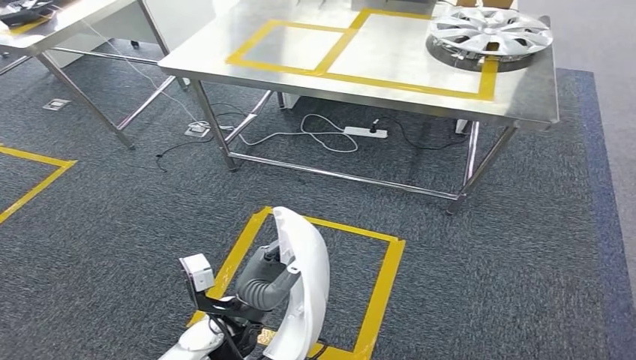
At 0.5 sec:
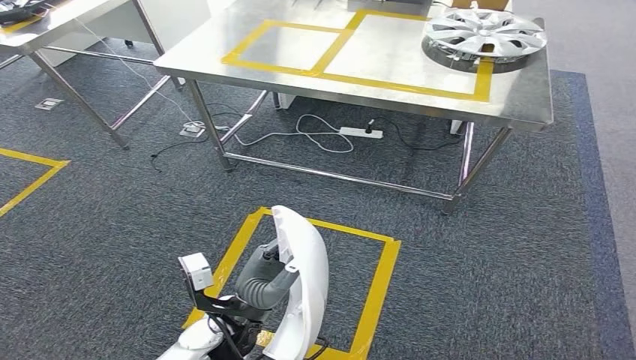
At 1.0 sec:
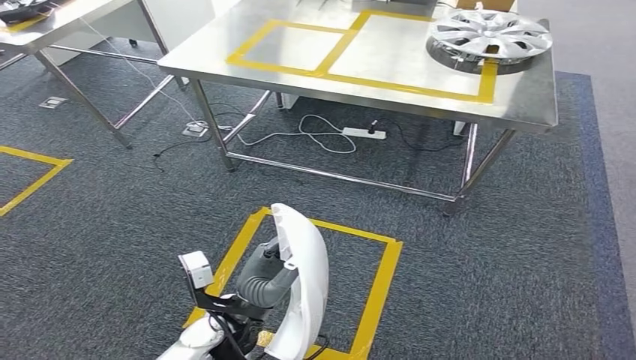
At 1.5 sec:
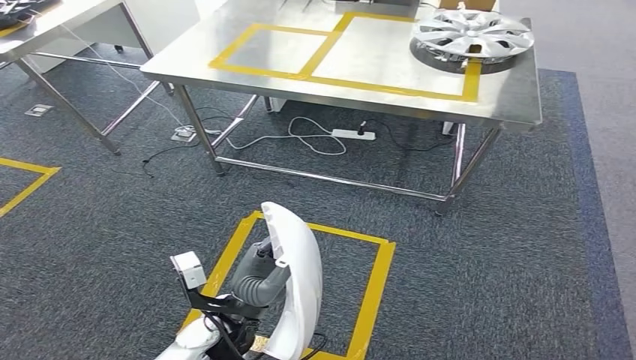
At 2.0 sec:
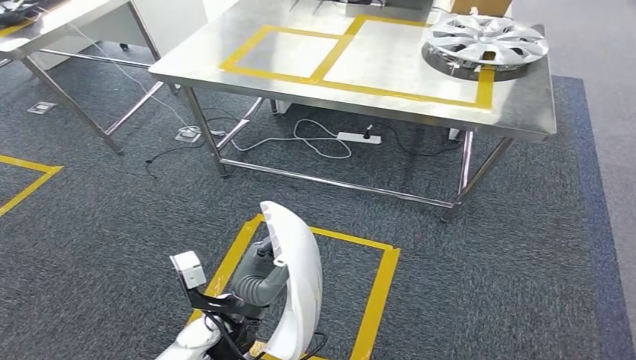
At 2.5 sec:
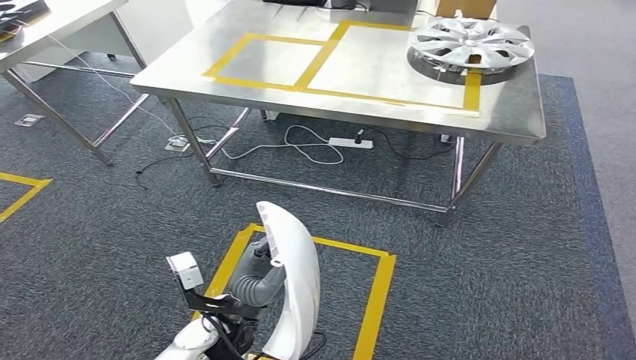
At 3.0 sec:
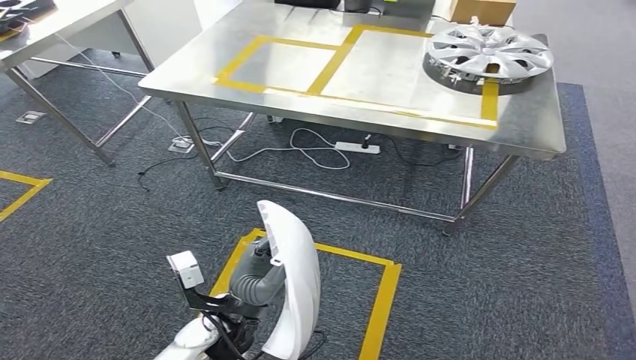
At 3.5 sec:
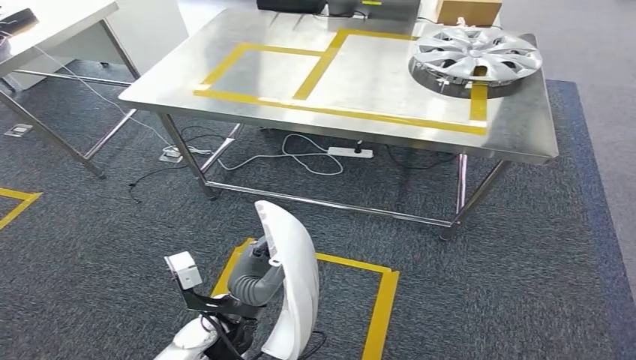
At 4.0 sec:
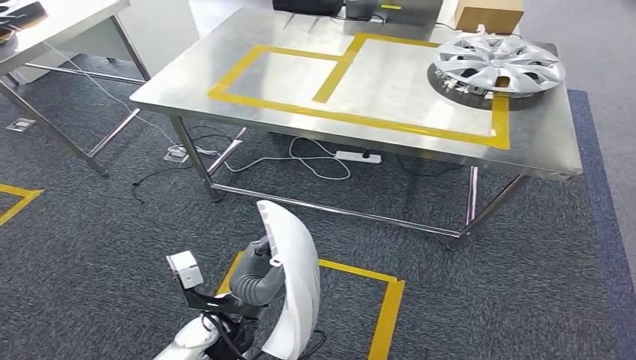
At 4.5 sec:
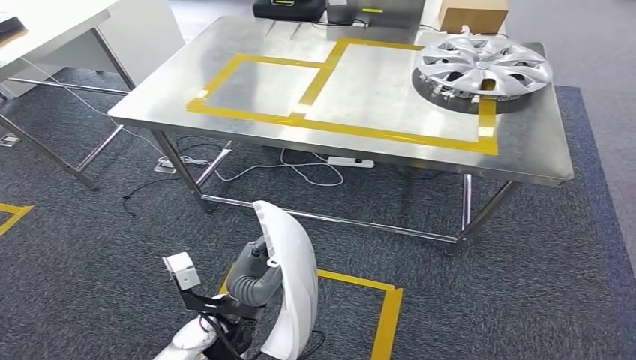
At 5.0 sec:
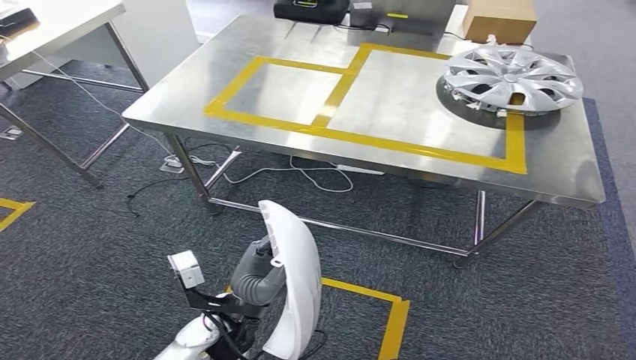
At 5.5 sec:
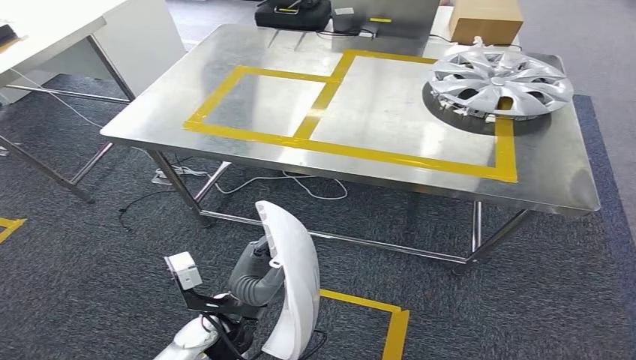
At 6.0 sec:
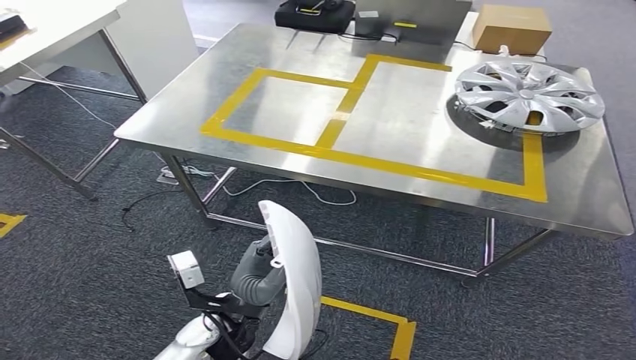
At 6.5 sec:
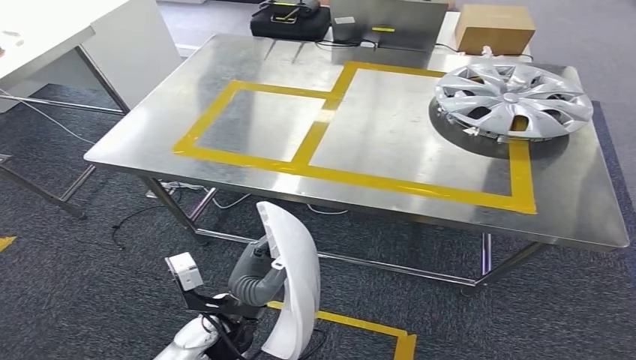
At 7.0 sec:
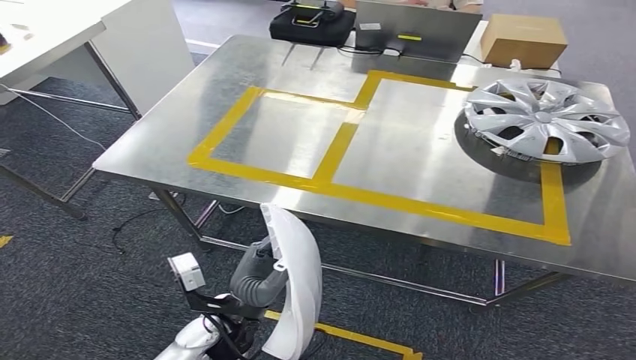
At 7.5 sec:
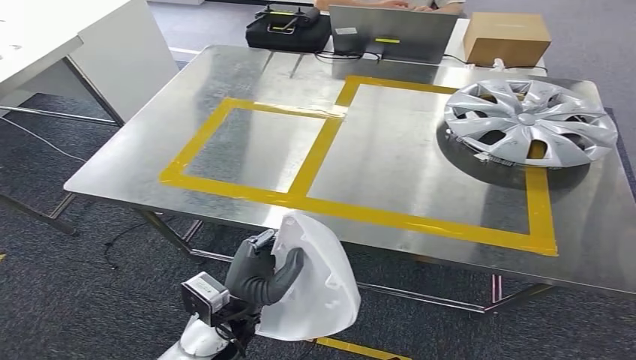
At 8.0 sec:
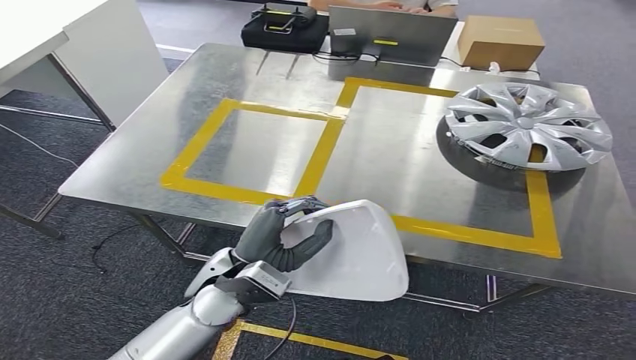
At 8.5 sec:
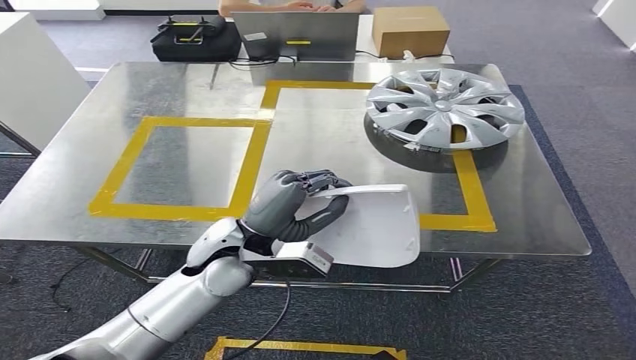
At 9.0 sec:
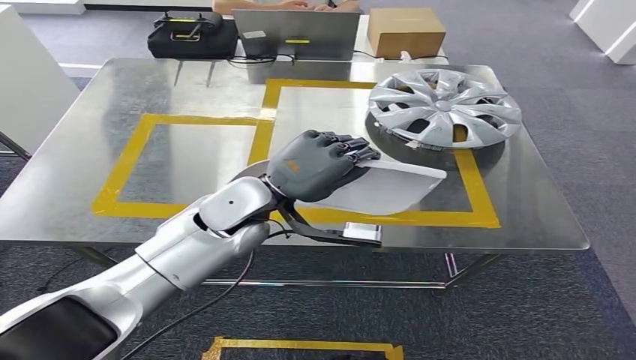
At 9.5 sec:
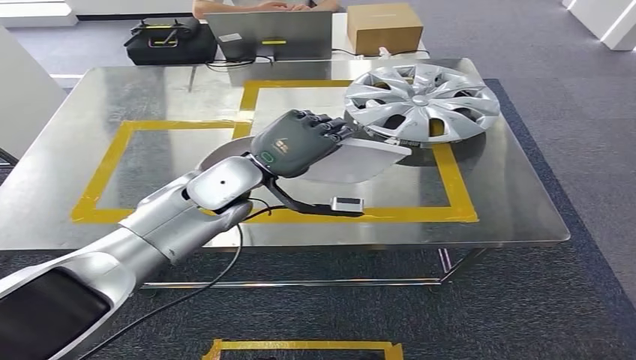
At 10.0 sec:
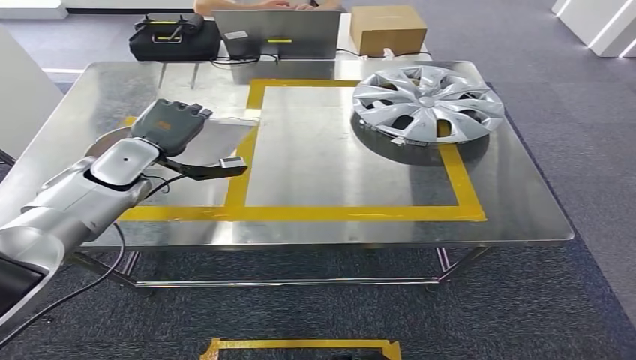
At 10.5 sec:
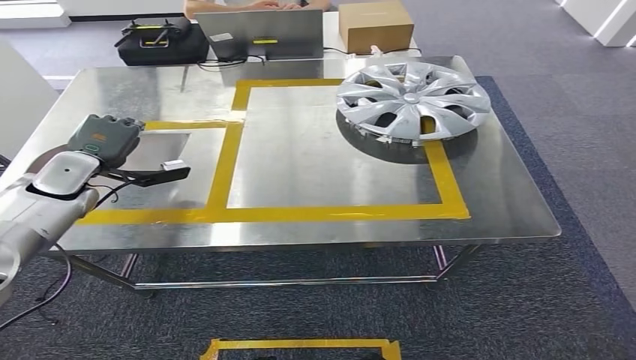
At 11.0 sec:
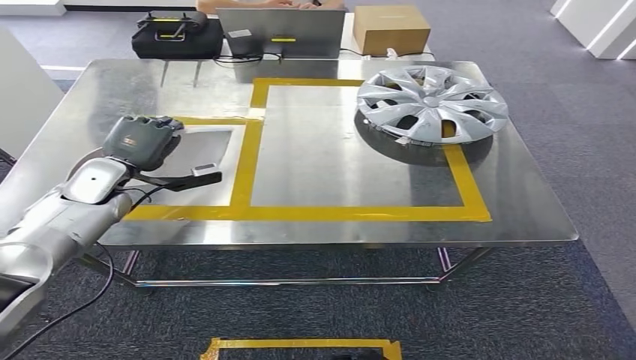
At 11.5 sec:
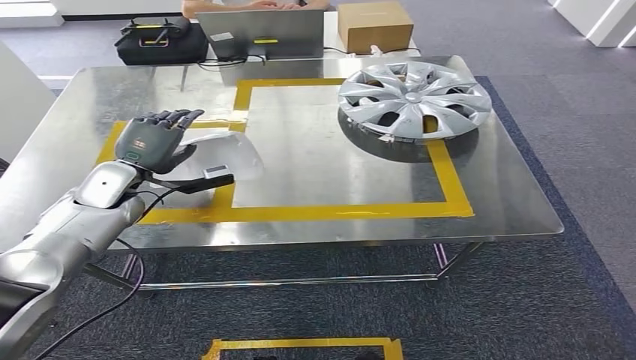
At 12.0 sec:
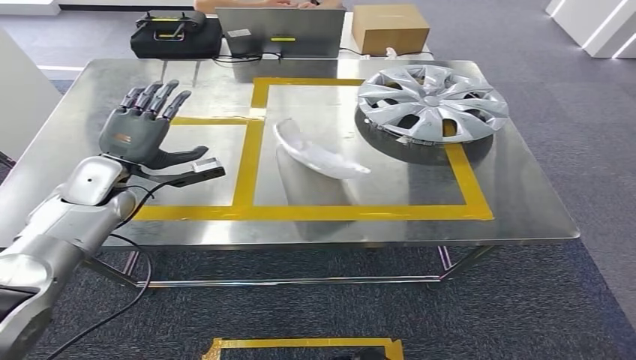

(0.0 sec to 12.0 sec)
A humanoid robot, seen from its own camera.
Step, 0.0 sec - 8.5 sec: Move the small parts to the workbench.

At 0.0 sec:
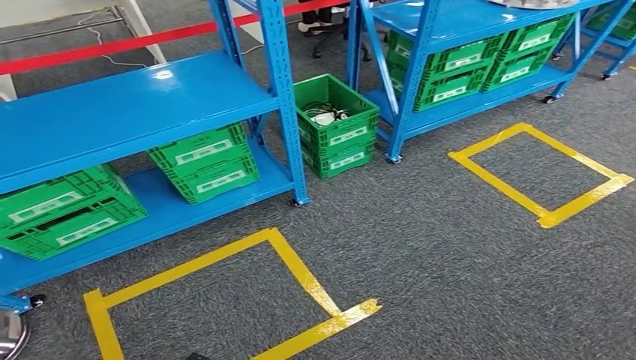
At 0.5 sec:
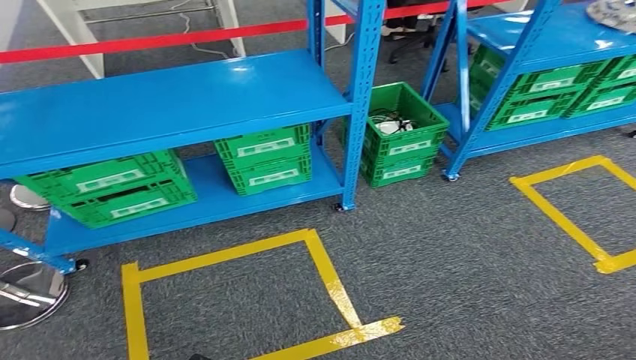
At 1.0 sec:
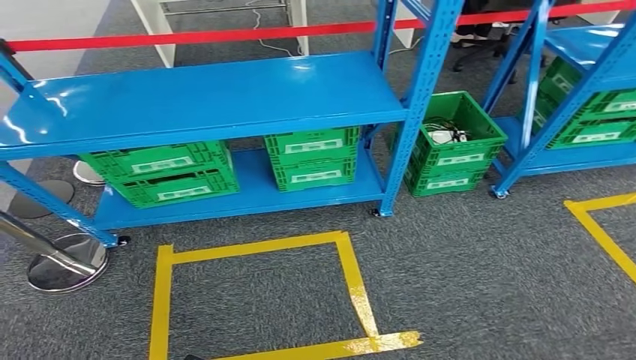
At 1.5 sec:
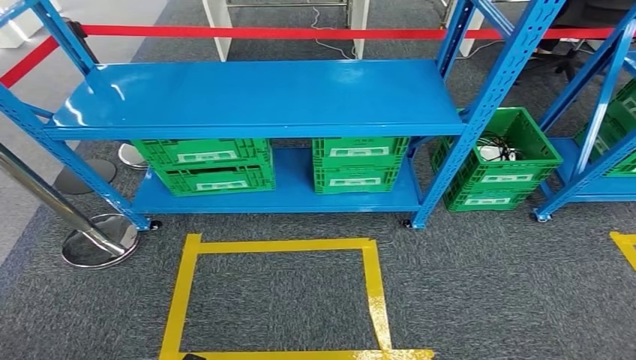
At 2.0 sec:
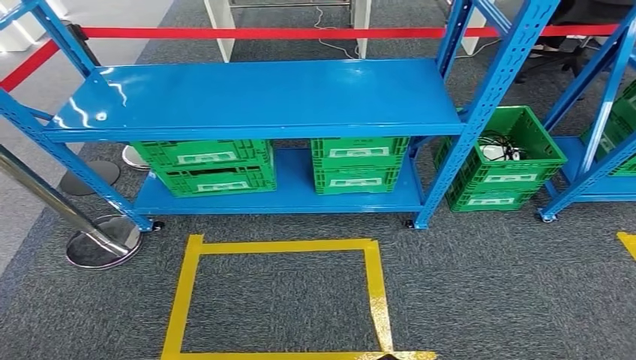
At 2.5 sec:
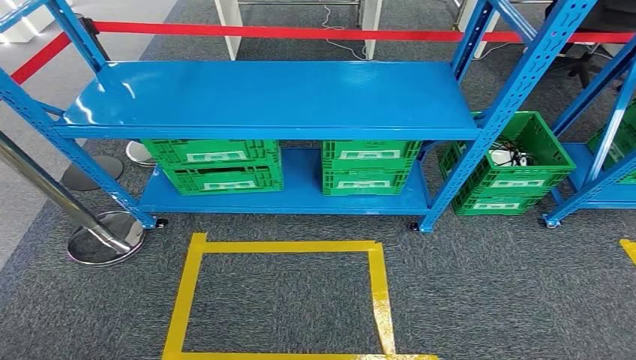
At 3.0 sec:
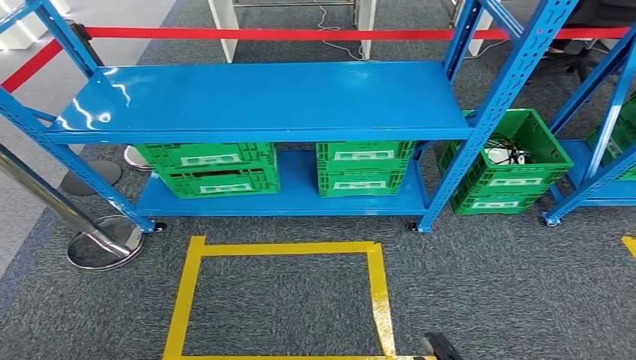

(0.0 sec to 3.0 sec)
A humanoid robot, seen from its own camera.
Step, 0.0 sec - 3.0 sec: Move to the initial position of the workbench.
1.5 sec - 3.0 sec: The right hand goes approximately 5 cm to the right. The left hand moves backward and to the left, approximately 10 cm.
